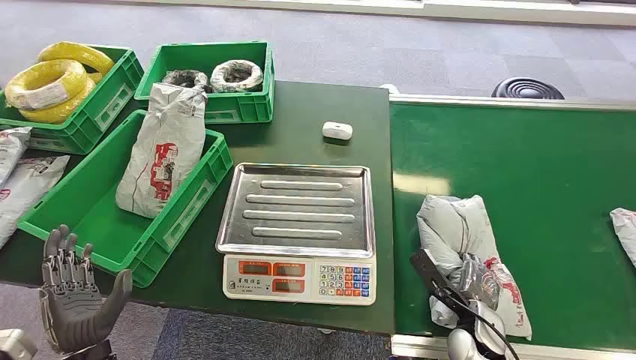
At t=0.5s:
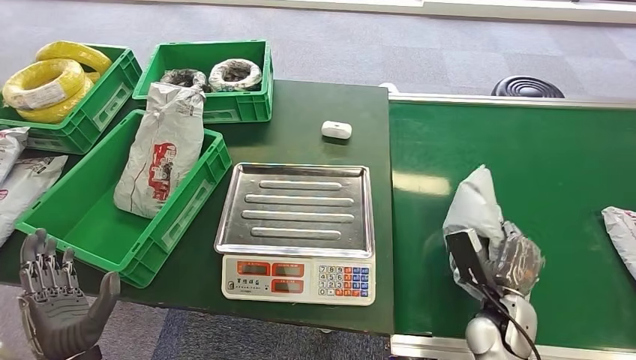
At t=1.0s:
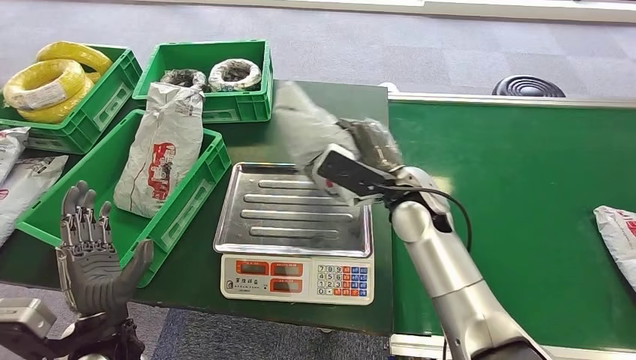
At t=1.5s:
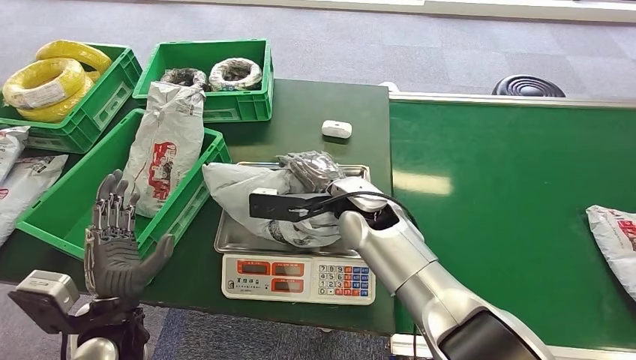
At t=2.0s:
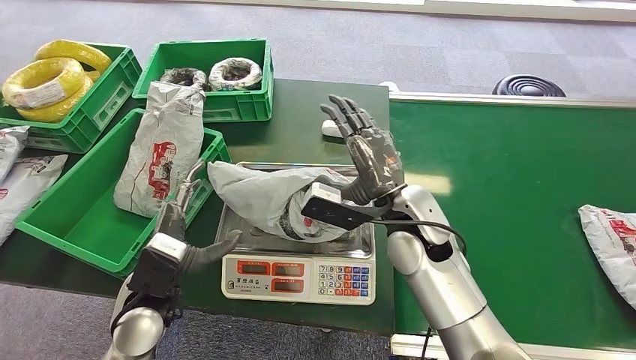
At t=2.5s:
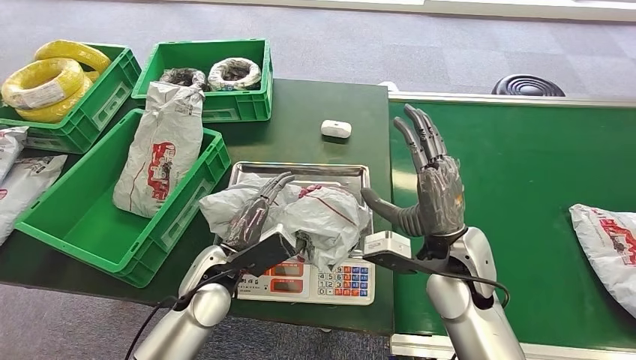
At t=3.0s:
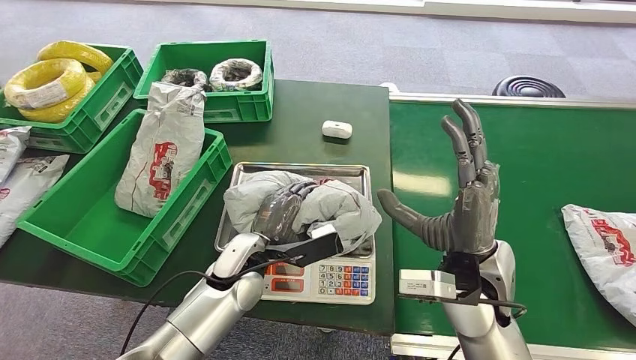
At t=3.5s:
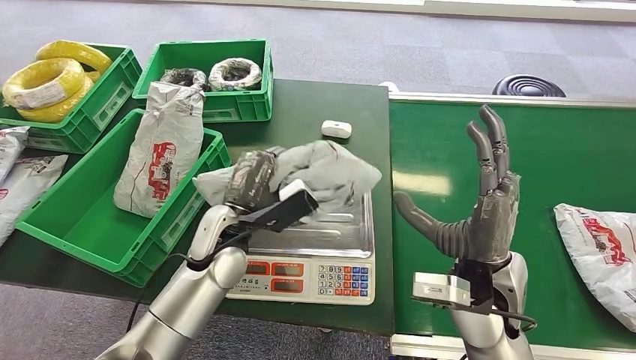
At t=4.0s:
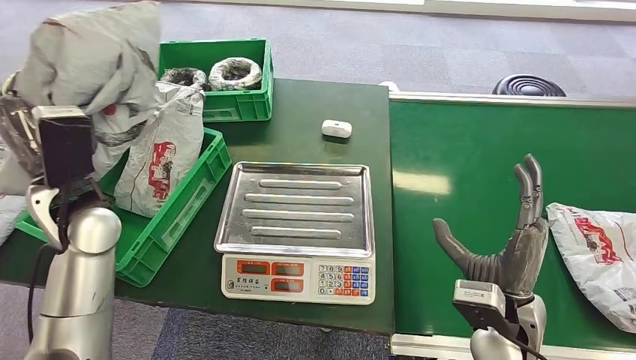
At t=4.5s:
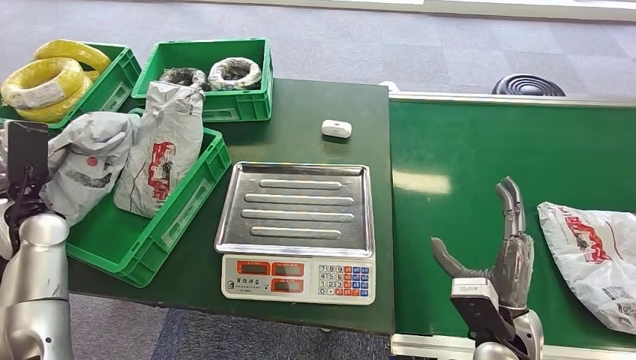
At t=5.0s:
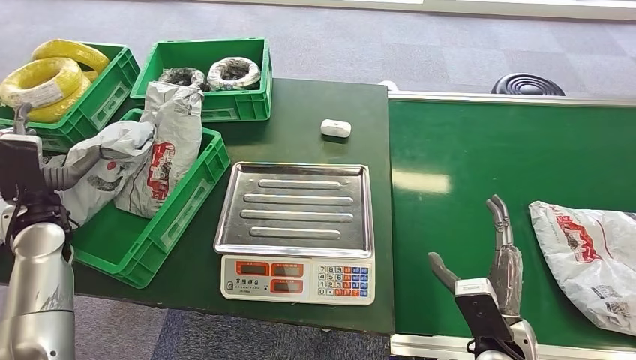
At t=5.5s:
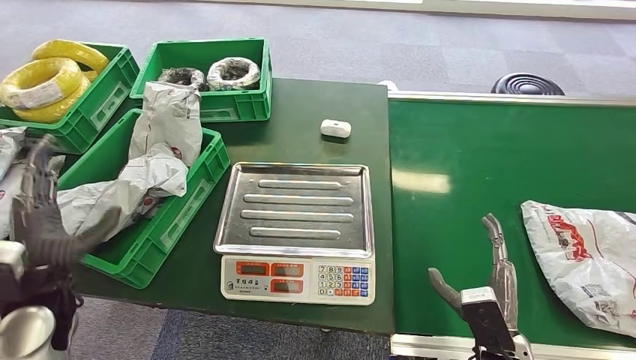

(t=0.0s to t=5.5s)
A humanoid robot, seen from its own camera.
Step, t=0.0s - t=0.5s: Pick up the package from the conveyor belt.
Step, t=1.0s - t=1.5s: Place the package onto the inbound machine.
Step, t=2.0s - t=3.5s: Pick up the package from the inbound machine.
Step, t=4.0s - t=5.5s: Place the package into the parcel locker.

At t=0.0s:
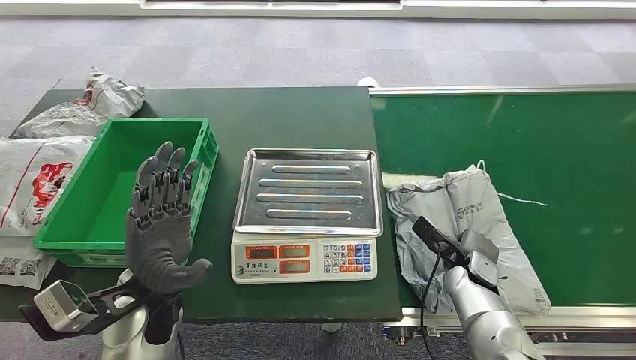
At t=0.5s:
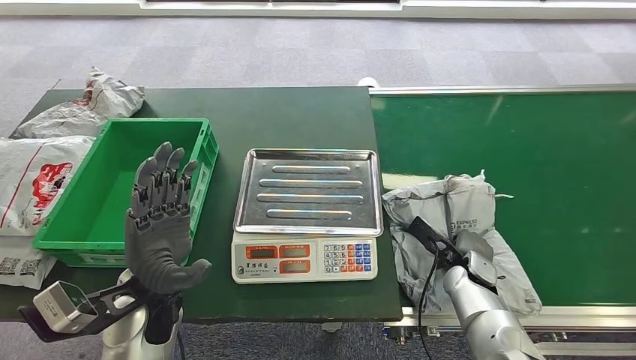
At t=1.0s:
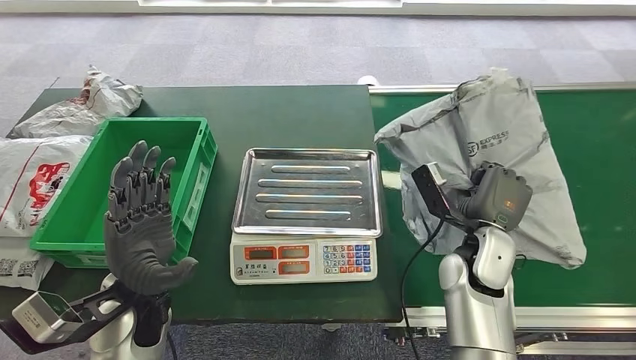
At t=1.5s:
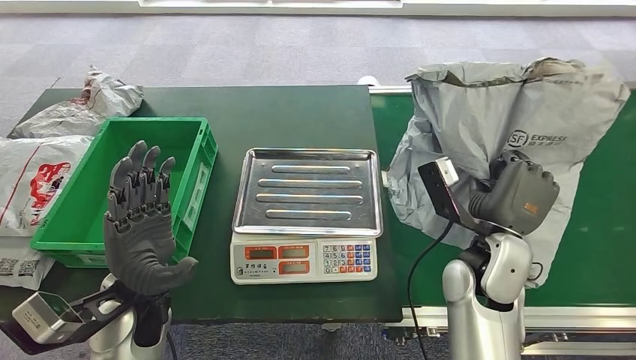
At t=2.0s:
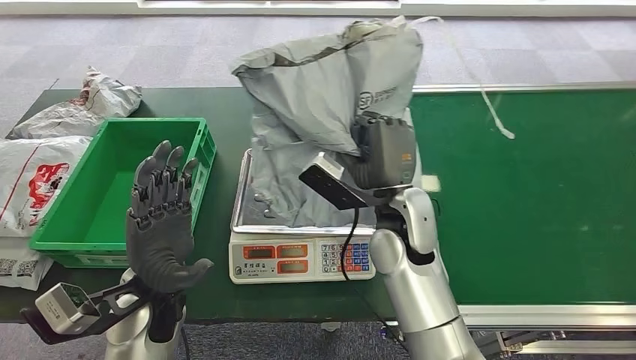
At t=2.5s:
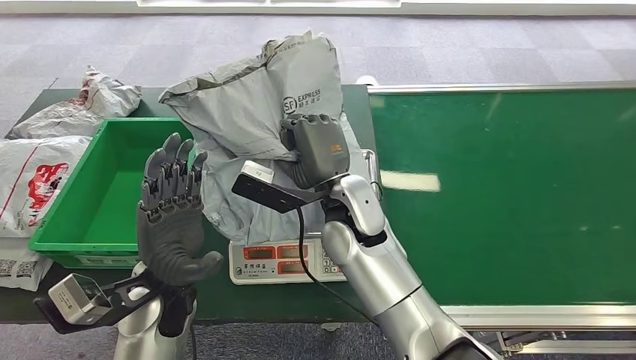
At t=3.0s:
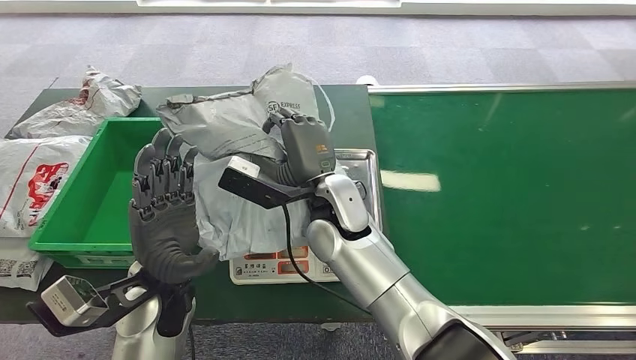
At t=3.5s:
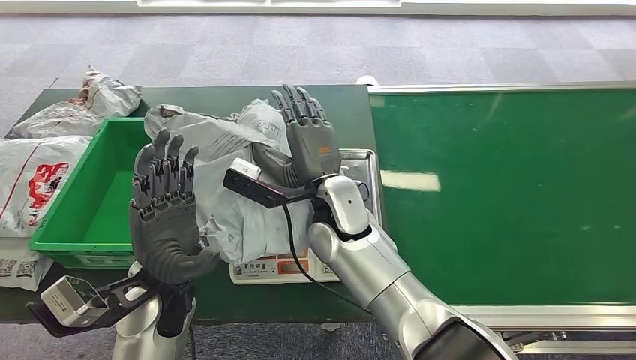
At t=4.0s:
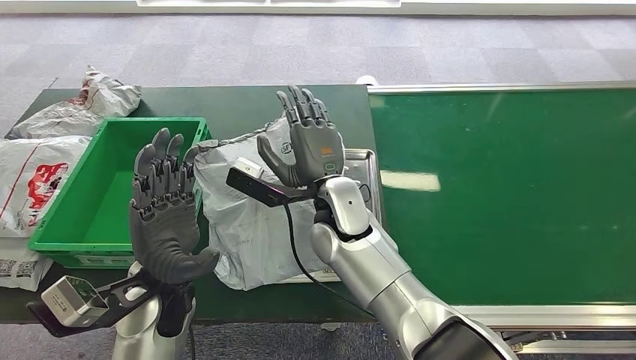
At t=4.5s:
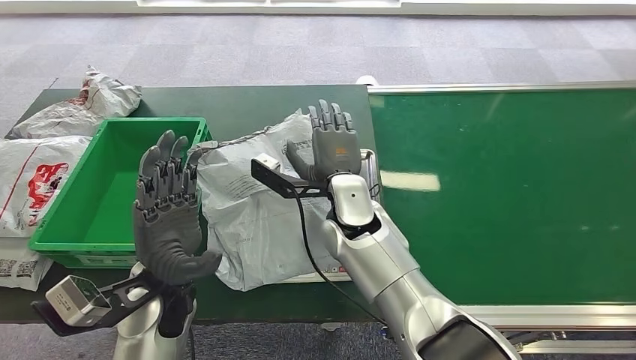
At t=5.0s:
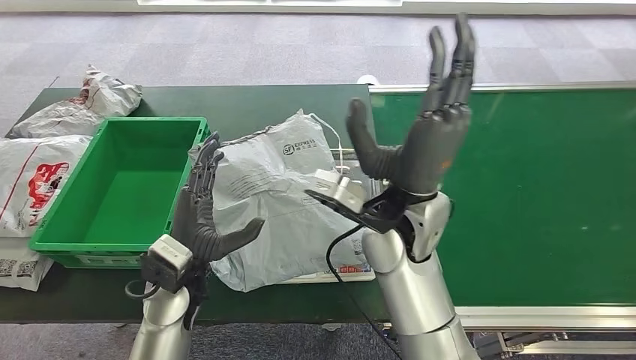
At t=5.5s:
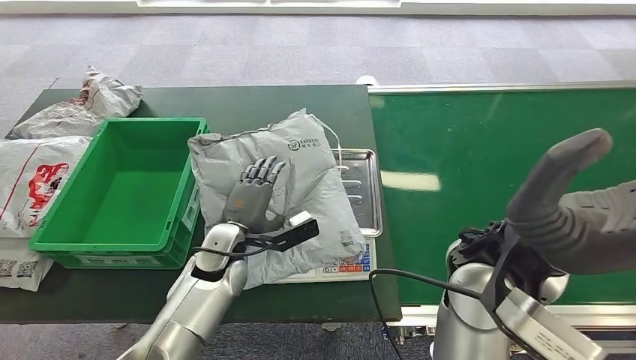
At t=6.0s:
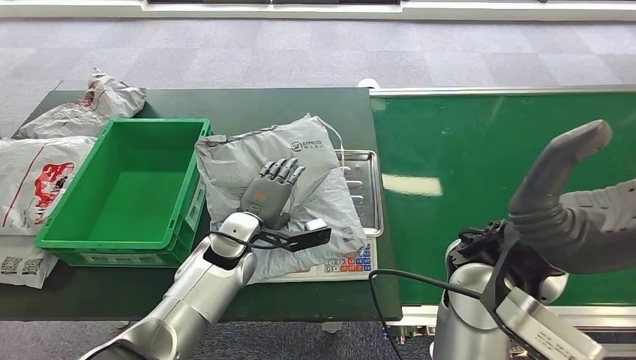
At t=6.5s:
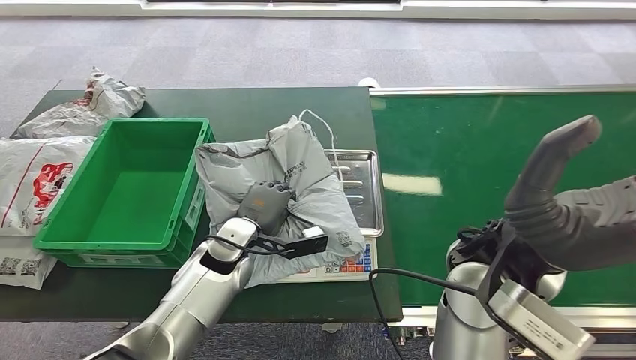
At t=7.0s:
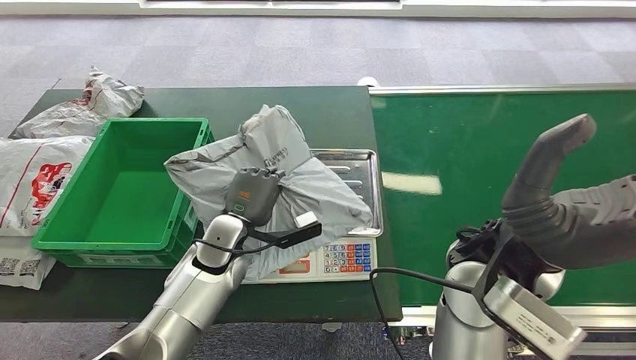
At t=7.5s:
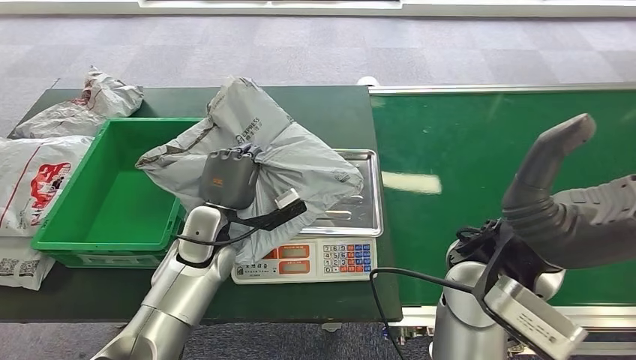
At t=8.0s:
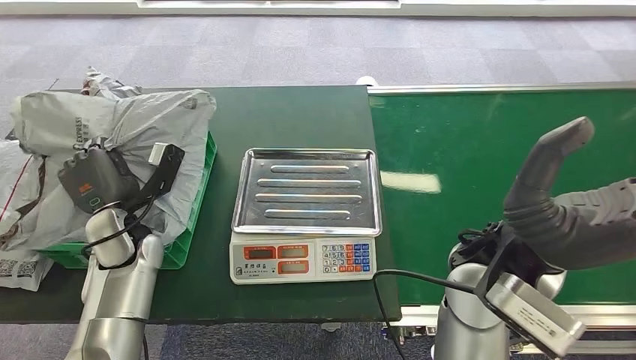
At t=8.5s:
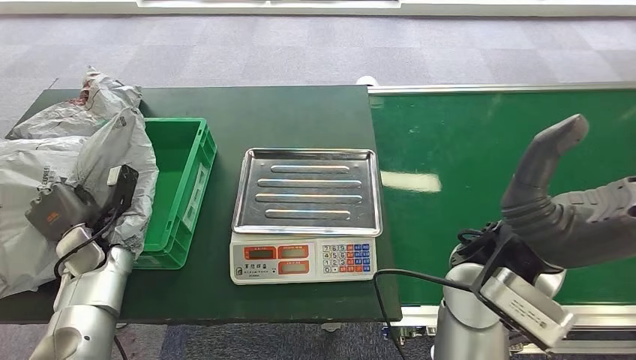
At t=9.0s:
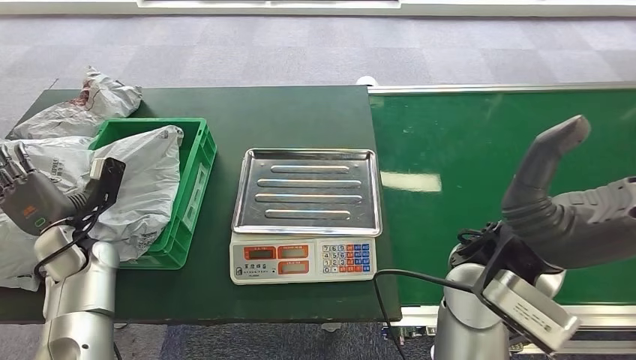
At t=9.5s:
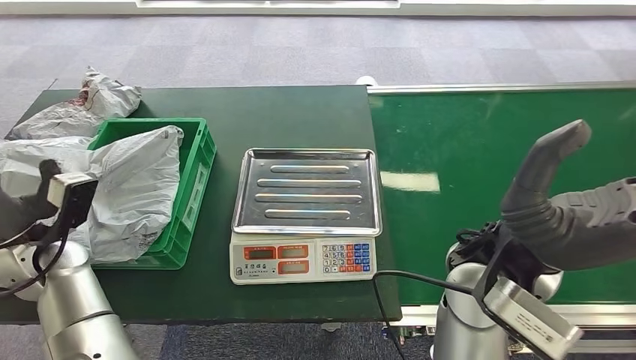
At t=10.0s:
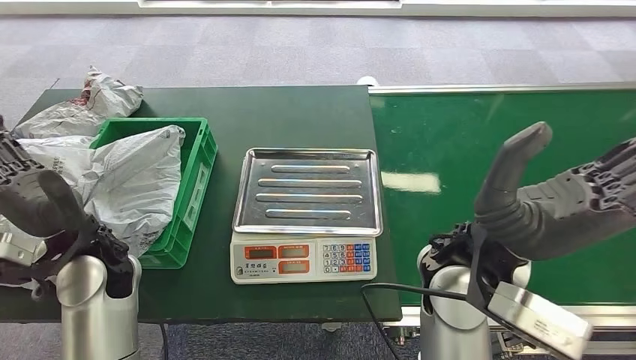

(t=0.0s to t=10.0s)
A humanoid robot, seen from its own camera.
Step, t=0.0s - t=1.0s: Pick up the package from the conveyor belt.
Step, t=2.0s - t=4.5s: Place the package onto the inbound machine.
Step, t=5.0s - t=7.5s: Pick up the package from the inbound machine.
Step, t=8.0s - t=10.0s: Place the package into the parcel locker.

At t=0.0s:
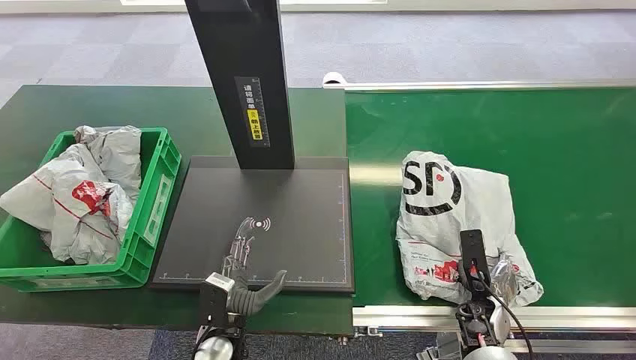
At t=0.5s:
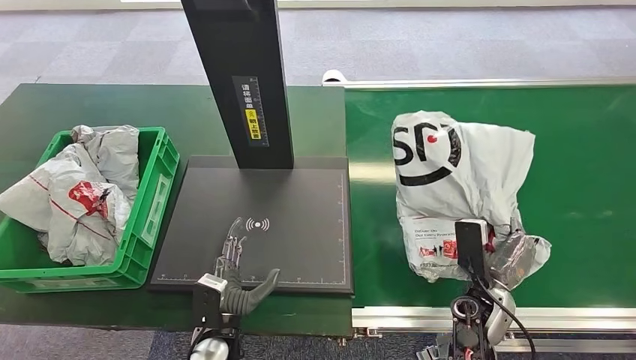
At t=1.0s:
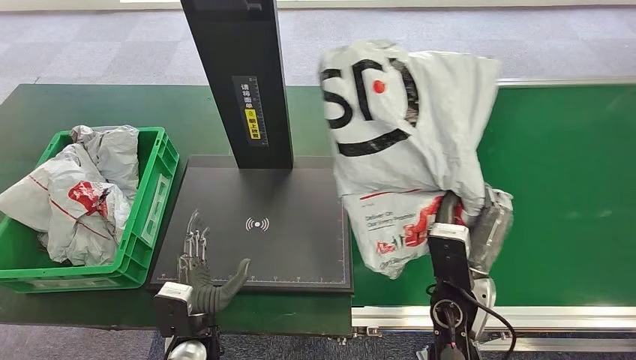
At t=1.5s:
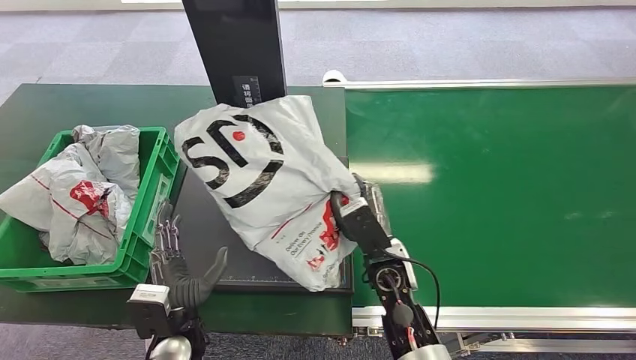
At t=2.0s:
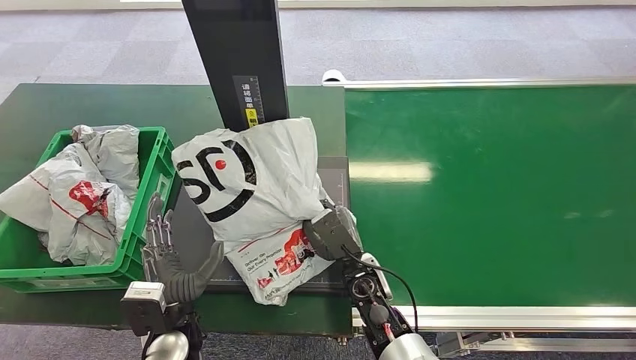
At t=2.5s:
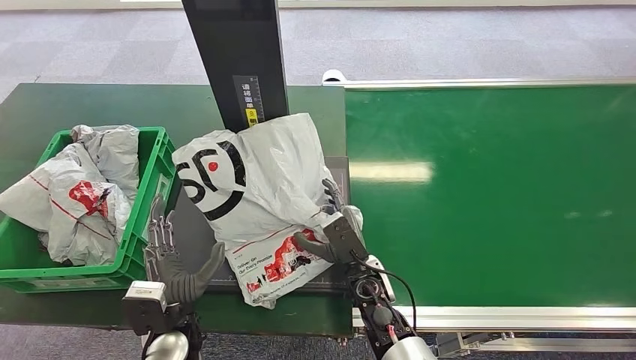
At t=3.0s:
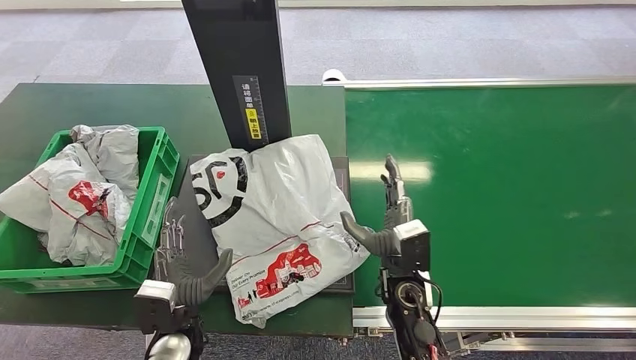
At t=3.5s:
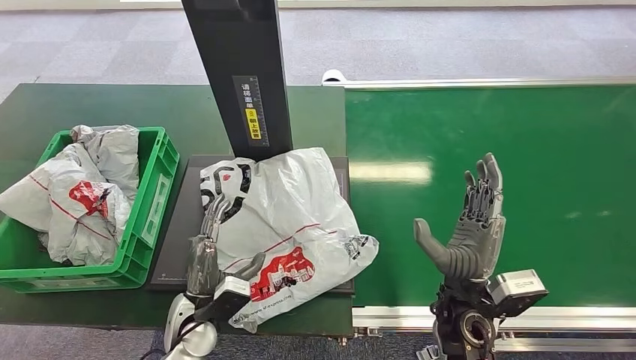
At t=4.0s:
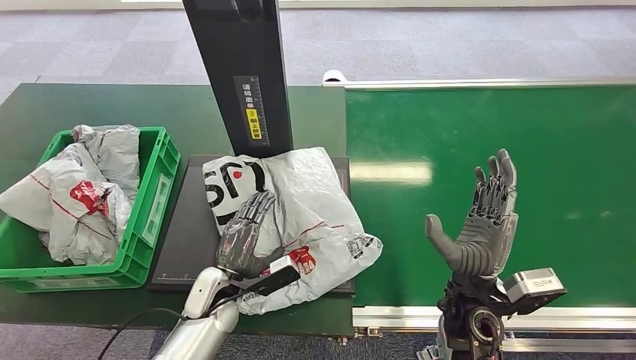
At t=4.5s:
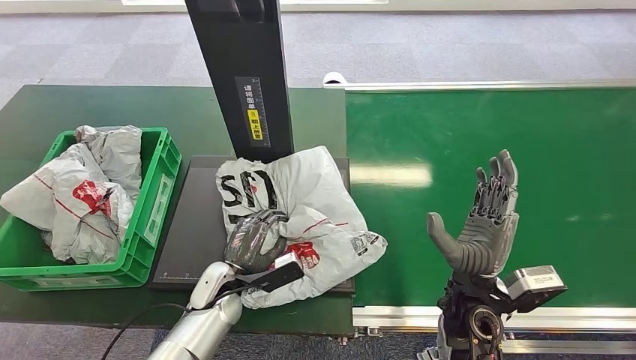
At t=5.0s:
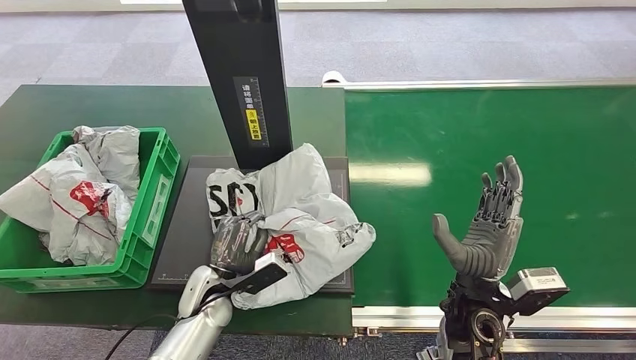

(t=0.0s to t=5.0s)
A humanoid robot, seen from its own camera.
Step, t=0.0s - t=1.0s: Pick up the package from the conveyor belt.
Step, t=1.5s - t=3.0s: Place the package onto the inbound machine.
